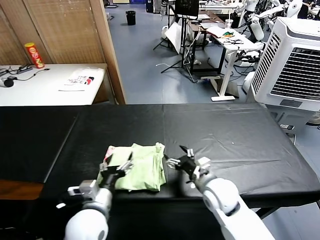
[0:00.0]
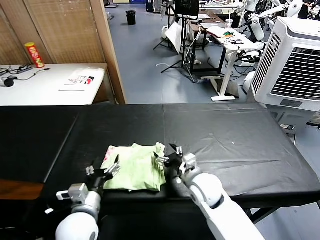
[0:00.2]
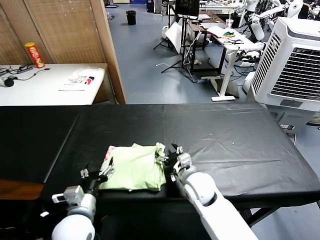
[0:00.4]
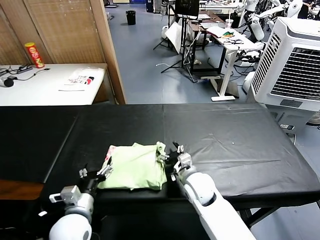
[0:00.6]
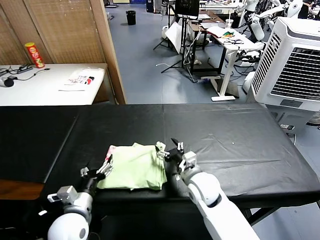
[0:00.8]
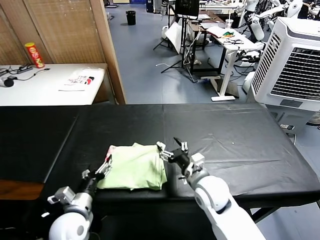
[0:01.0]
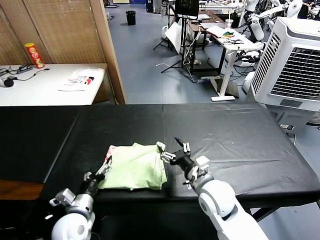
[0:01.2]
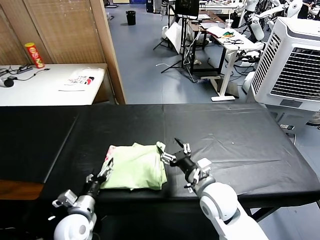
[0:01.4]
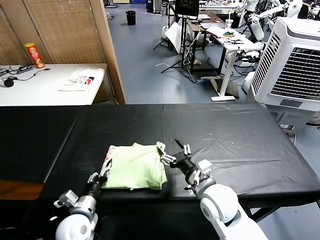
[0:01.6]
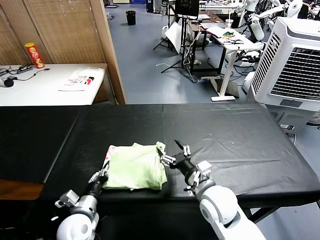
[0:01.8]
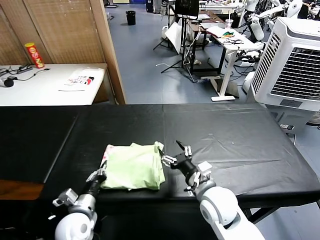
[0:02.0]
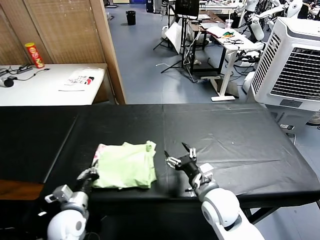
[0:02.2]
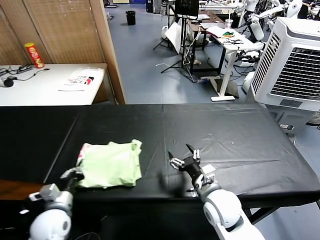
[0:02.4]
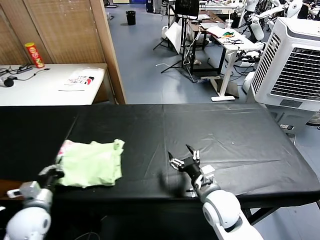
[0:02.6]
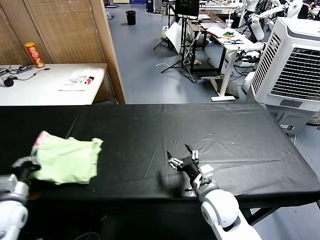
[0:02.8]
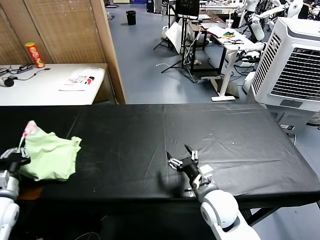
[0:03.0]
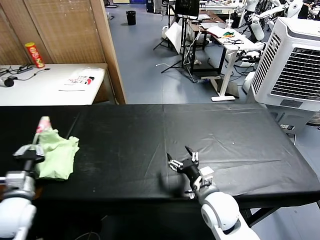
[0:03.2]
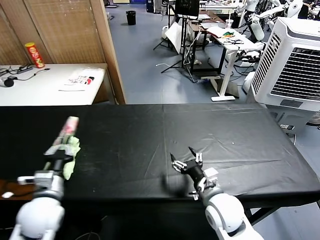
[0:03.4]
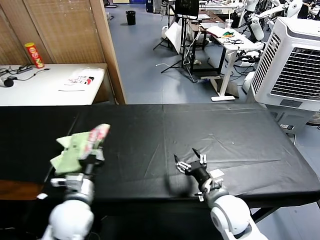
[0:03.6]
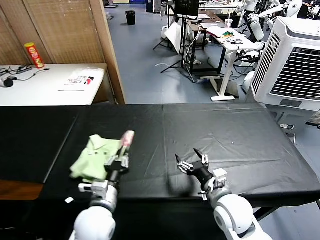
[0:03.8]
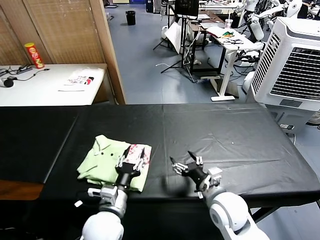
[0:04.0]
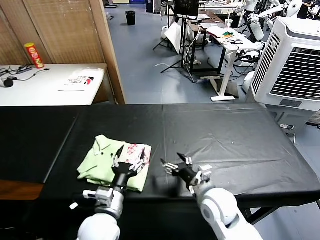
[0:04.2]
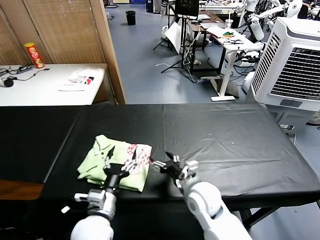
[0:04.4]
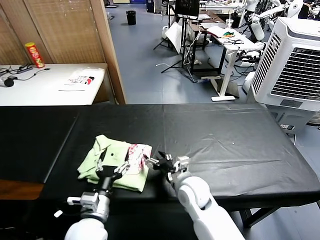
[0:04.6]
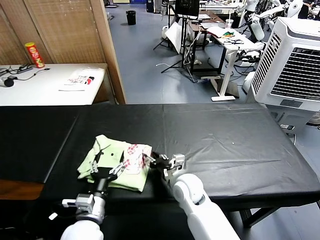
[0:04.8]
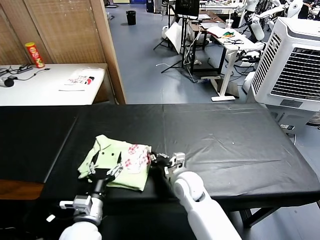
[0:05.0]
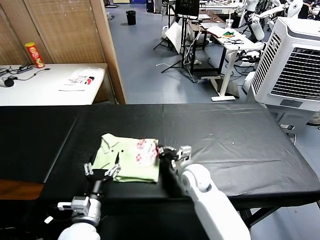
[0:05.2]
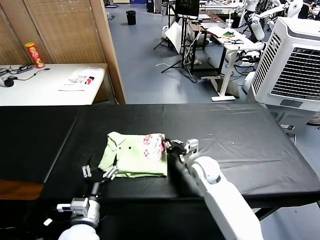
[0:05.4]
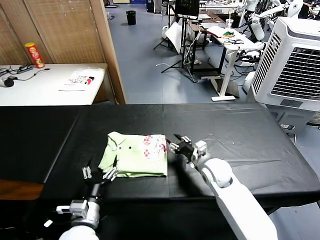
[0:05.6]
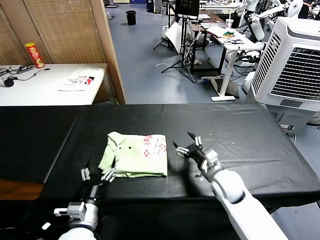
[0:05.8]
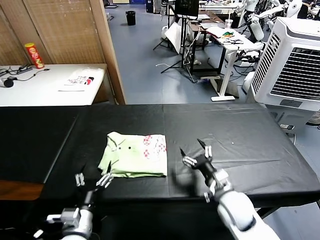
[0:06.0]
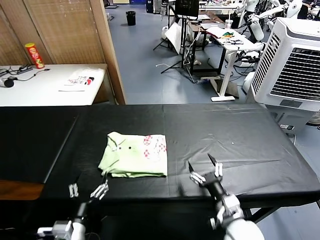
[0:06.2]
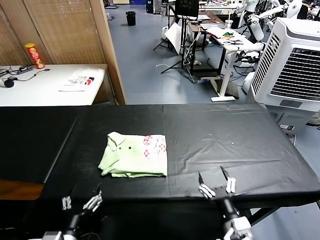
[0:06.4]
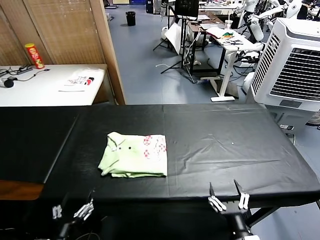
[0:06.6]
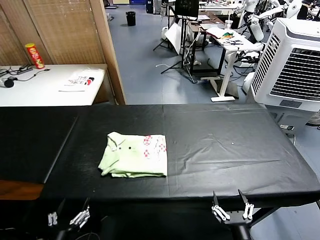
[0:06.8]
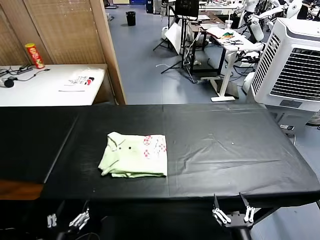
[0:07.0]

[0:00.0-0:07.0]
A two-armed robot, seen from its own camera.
Task of the whole recording: fold and organize the clothes.
Step, 0.0 to 3.8 s: Flip the folded clothes over with left gripper.
Step, 4.2 to 5.4 s: Drag the clothes to the center of the table.
0.0 to 1.4 s: The left gripper travels downward and to the left by some 10 cm.
1.4 to 2.8 s: The left gripper is displaced to the left and upward by about 20 cm, and closes up.
2.8 to 4.2 s: The left gripper travels to the right by some 30 cm, and opens.
4.2 to 5.6 s: The left gripper shifts about 5 cm to the left. Meanwhile the right gripper goes some 10 cm forward, and closes up.
5.6 to 7.0 s: The right gripper goes about 35 cm backward, and opens its fingers; the left gripper goes approximately 15 cm backward and to the left.

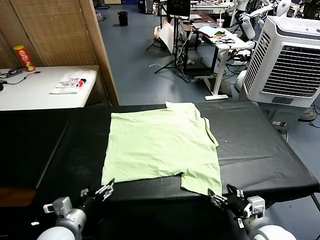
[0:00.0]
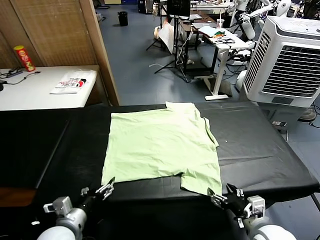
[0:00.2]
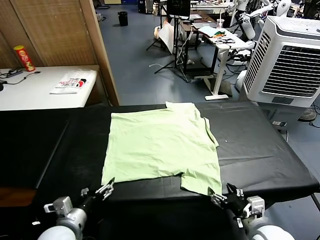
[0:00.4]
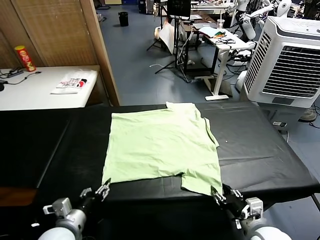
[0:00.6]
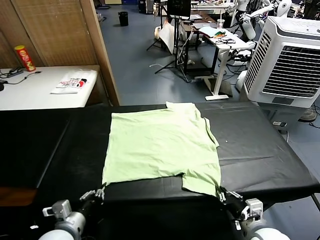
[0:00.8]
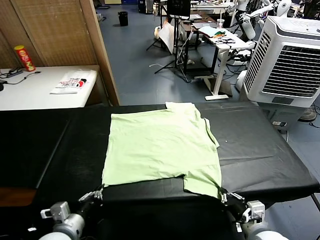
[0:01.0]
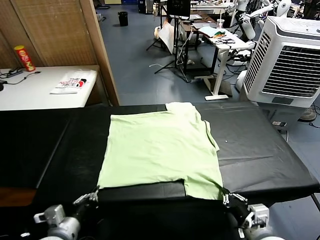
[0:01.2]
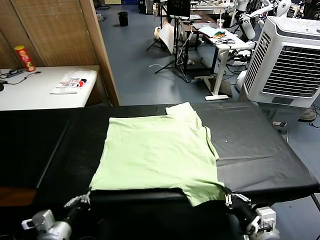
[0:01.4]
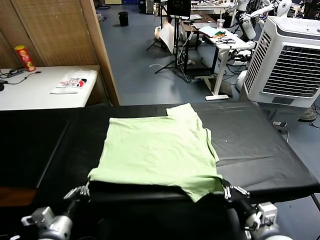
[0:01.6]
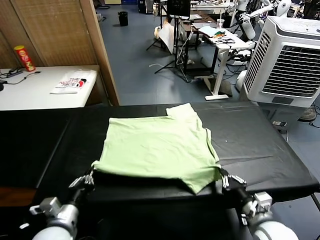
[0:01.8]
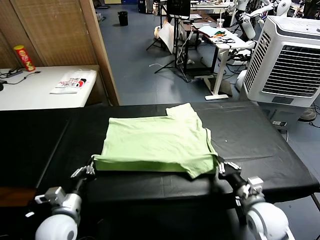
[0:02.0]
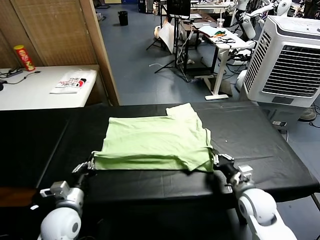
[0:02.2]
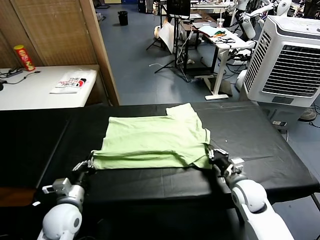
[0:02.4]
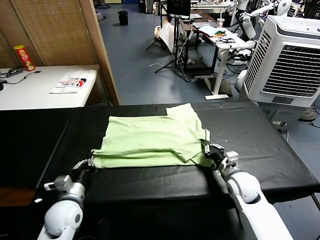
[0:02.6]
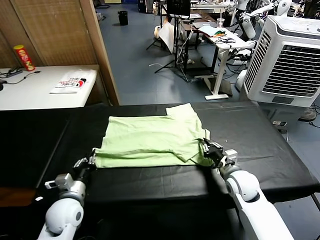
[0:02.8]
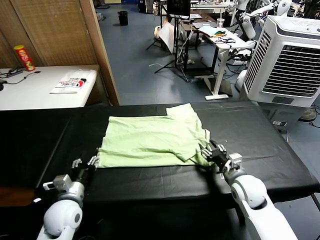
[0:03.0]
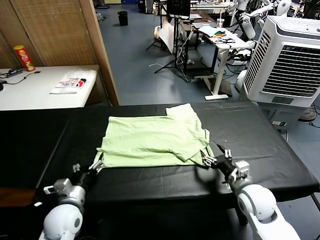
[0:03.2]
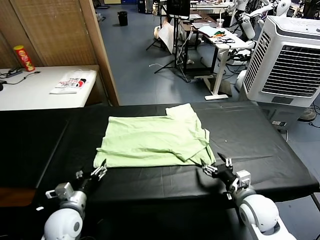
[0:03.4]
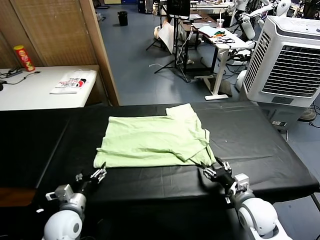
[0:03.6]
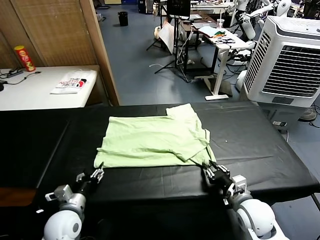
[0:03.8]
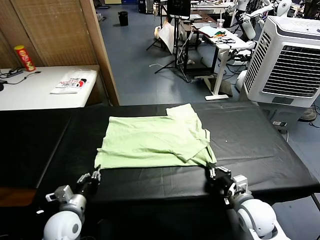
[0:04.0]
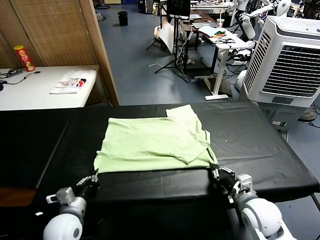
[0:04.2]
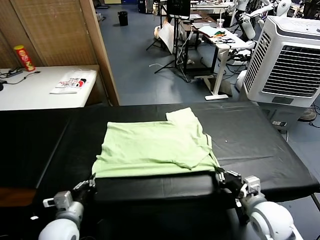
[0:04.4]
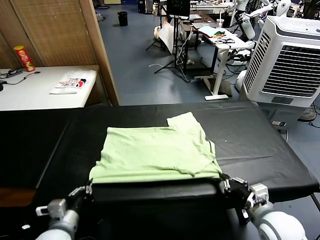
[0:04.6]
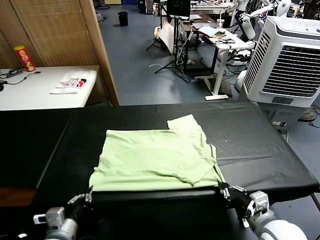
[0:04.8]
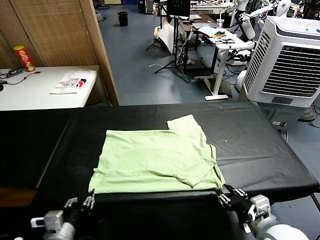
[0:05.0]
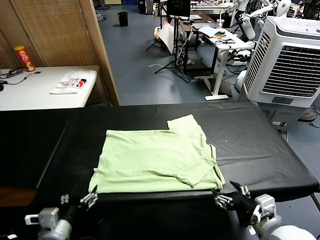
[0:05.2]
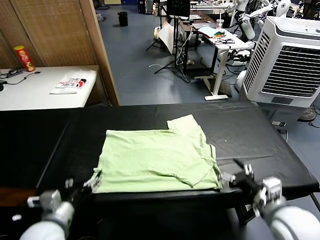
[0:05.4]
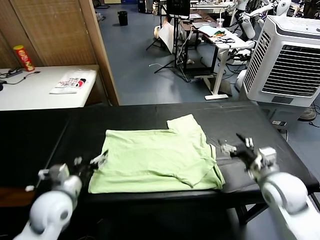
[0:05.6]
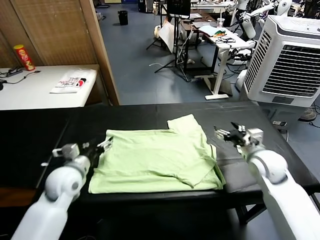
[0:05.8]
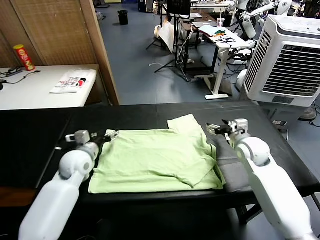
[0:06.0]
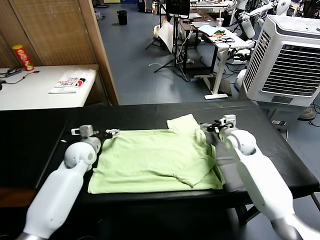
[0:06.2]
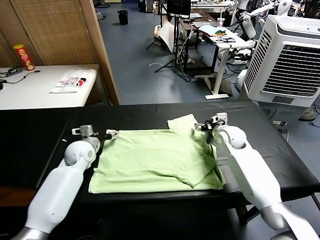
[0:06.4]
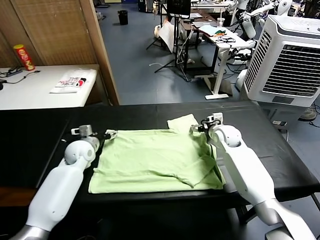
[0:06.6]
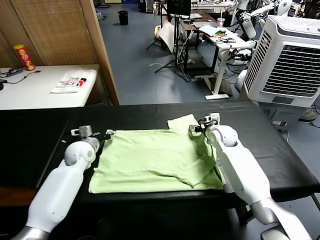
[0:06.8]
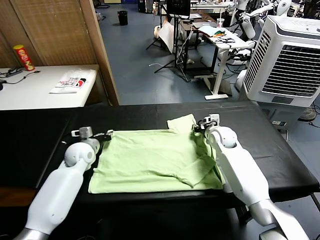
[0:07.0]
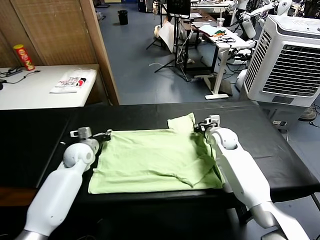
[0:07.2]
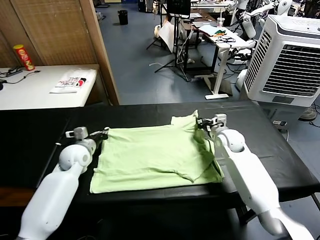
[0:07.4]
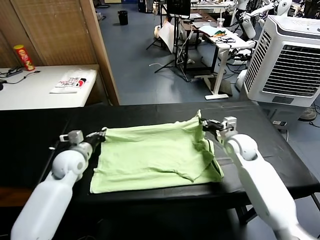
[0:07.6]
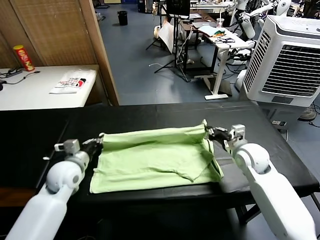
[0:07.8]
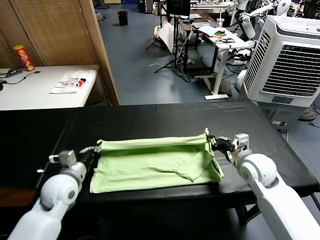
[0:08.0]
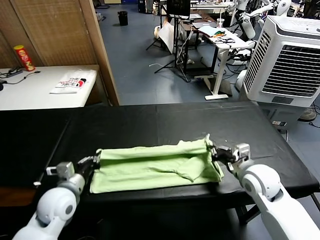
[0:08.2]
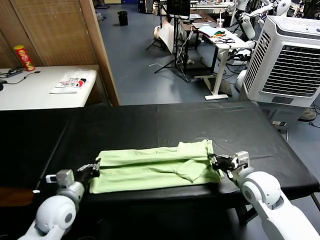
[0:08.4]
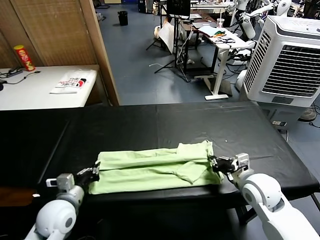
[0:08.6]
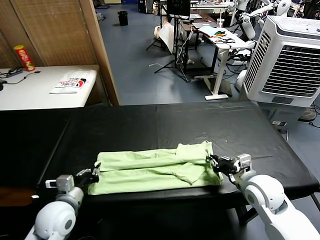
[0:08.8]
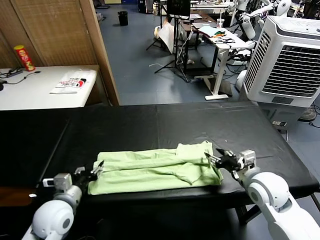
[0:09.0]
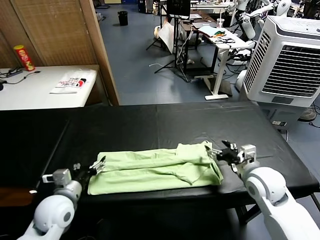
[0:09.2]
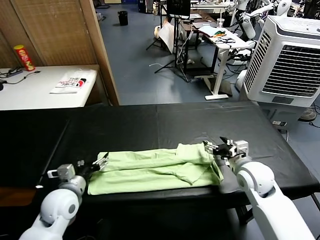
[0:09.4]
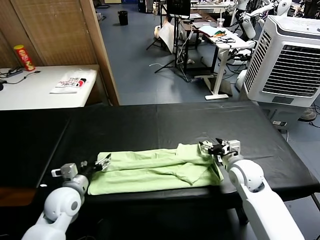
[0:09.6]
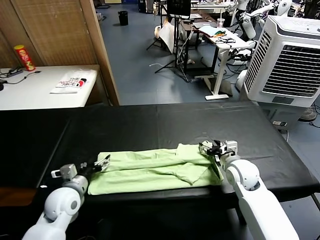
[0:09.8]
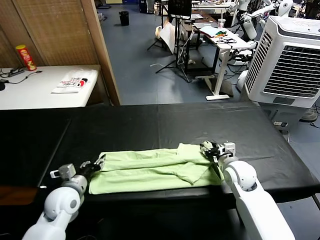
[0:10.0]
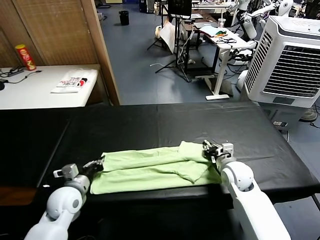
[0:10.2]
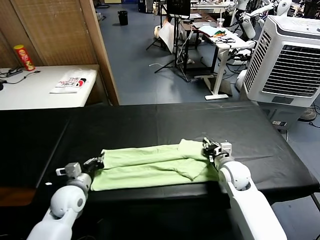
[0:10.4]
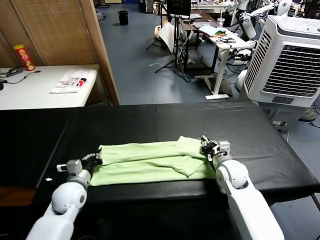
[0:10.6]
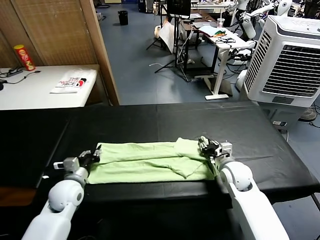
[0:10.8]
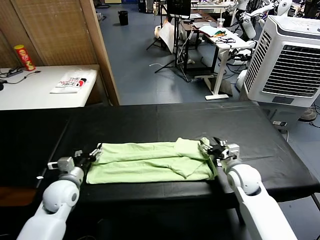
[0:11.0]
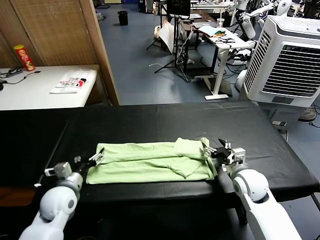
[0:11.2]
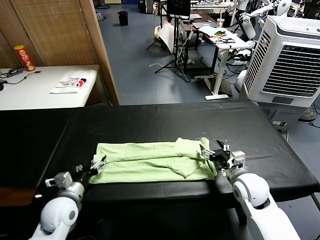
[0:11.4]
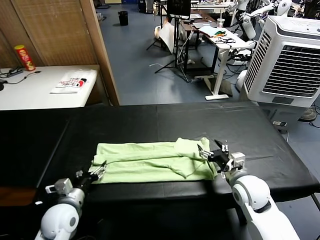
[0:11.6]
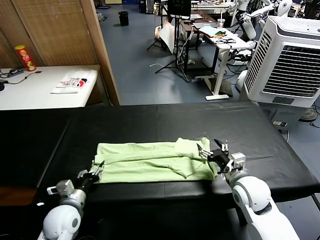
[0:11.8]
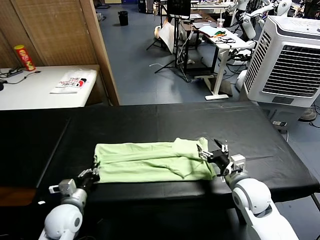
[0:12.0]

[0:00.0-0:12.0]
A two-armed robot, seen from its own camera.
Task of the whole recording: fold and organize the clothes.
Step, 0.0 to 0.8 s: use both grippers simultaneously to clamp the lower edge of the clothing fabric.
Step, 1.0 to 3.0 s: use both grippers to drag the lower edge of the fabric forward and fold it over the upper edge.
Step, 3.2 to 5.0 s: Drag the clothes downward with both gripper.
Step, 5.4 to 7.0 s: use both grippers simultaneously to clamp the upper edge of the clothing fabric.
Step, 7.2 to 8.8 s: use both grippers to drag the upper edge of the fabric backward and fold it over the lower edge.
Step, 9.2 to 12.0 s: use the left gripper to clamp the left edge of the fabric.
1.6 to 3.0 s: Both grippers move forward, some 10 cm. The left gripper opens up. The right gripper opens.
3.0 to 4.4 s: The left gripper moves backward, some 5 cm, and closes. The right gripper moves backward, roughly 10 cm, and closes its fingers.
4.4 to 6.0 s: The grippers both shift forward by approximately 20 cm. The left gripper opens up, while the right gripper opens its fingers.
6.0 to 7.6 s: The left gripper closes its fingers. The right gripper closes.
7.6 to 9.0 s: Both grippers move backward, approximately 15 cm. The left gripper opens its fingers, while the right gripper opens up.
9.0 to 10.4 s: The right gripper travels downward and forward by roughly 10 cm, and closes, while the left gripper goes about 5 cm forward, and closes its fingers.
10.4 to 12.0 s: The left gripper moves backward, roughly 5 cm, and opens and closes again. The right gripper goes roughly 10 cm backward, and opens.

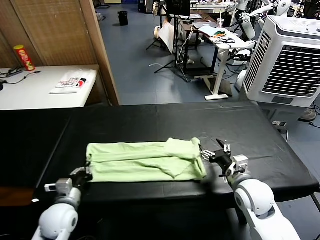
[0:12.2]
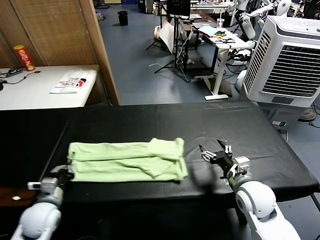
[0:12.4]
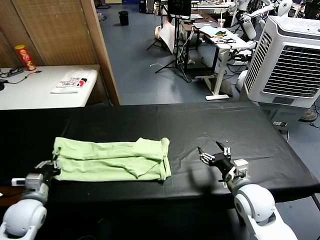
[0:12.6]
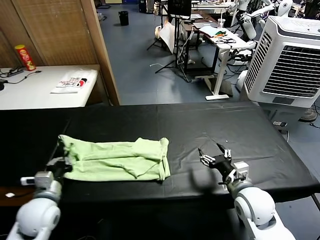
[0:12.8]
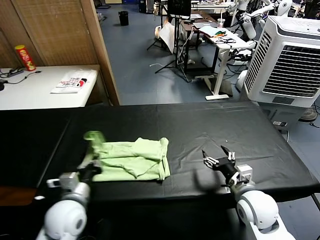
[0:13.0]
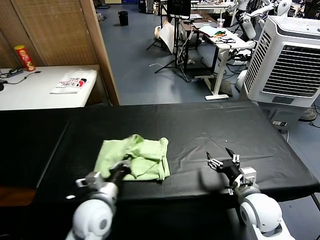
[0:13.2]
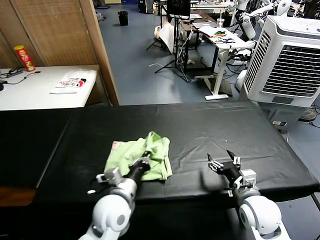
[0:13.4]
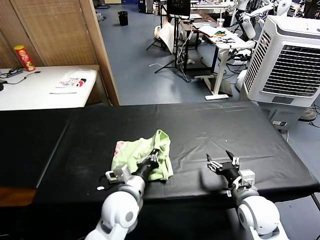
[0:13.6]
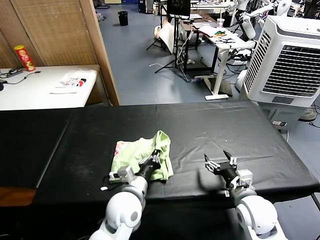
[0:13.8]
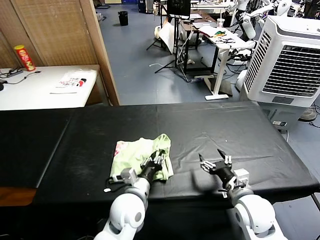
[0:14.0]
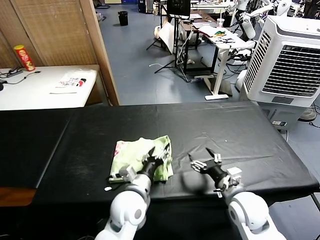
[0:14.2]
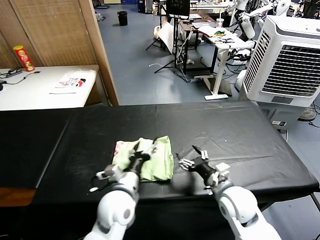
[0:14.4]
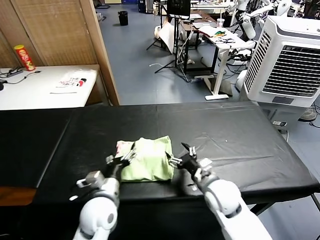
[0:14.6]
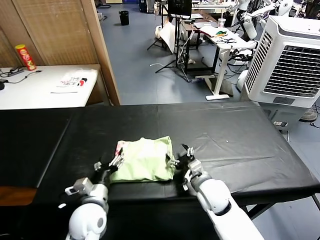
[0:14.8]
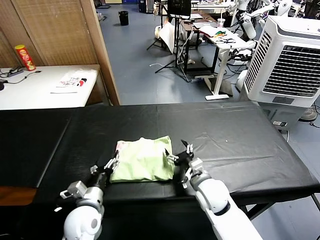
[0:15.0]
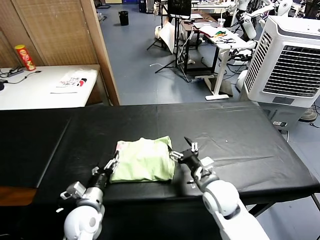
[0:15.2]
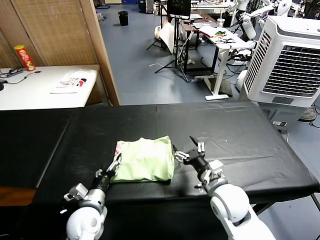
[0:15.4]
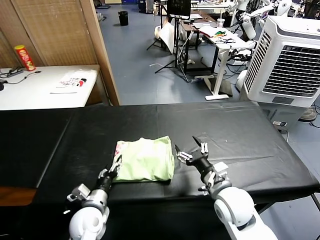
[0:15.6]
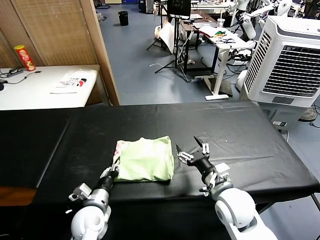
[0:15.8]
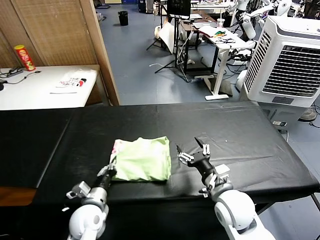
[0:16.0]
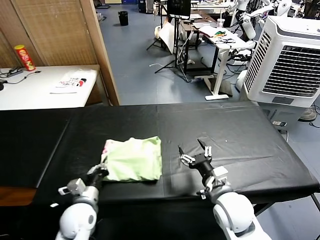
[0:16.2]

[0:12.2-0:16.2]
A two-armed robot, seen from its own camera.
Task of the whole recording: fold and organize the clothes.
Step, 12.2 to 14.0 s: use the left gripper to drag the left edge of the fabric to the left and folds it over the right edge.
12.2 to 13.6 s: The left gripper heads to the right, covering roughly 20 cm.
13.6 to 14.8 s: The right gripper is displaced to the left and forward by some 15 cm. Meanwhile the left gripper heads to the left, covering approximately 10 cm, and opens up.
14.8 to 16.2 s: The right gripper is displaced backward by some 5 cm. Meanwhile the left gripper shifts by roughly 5 cm, and closes its fingers.
